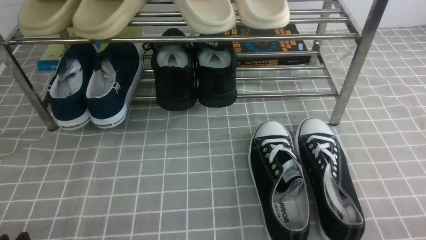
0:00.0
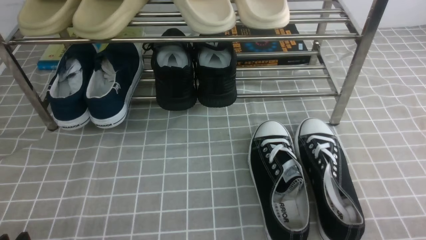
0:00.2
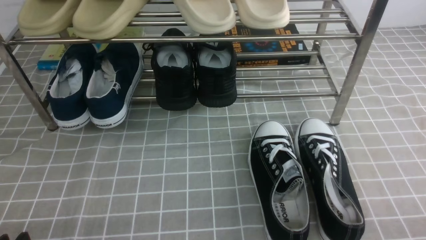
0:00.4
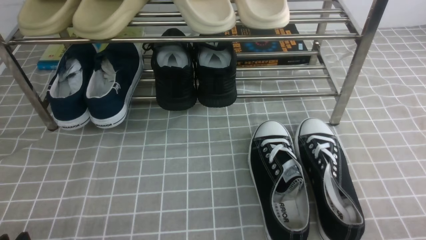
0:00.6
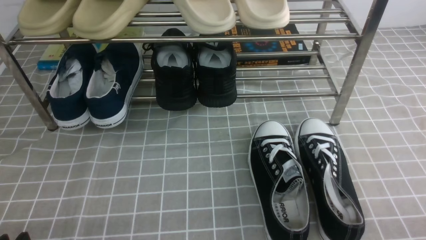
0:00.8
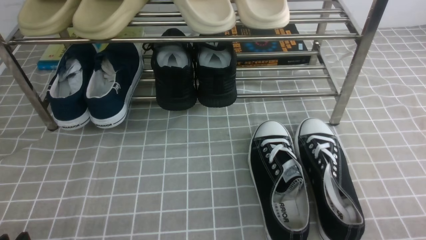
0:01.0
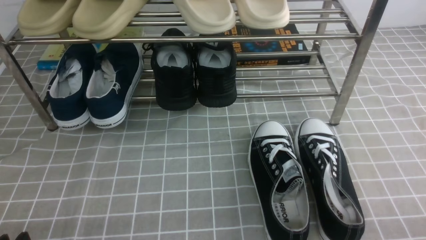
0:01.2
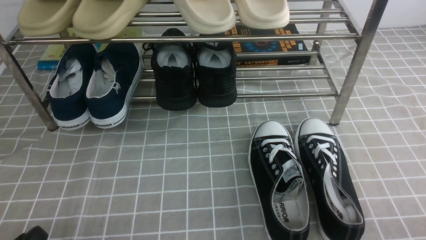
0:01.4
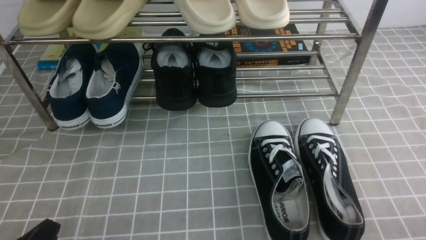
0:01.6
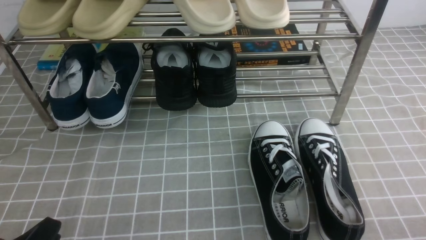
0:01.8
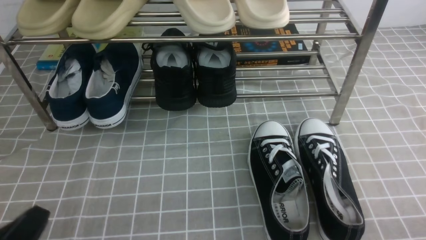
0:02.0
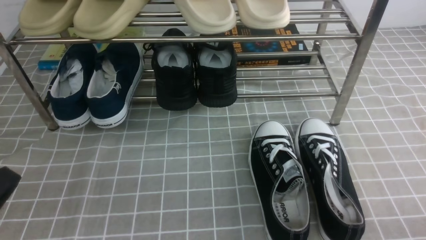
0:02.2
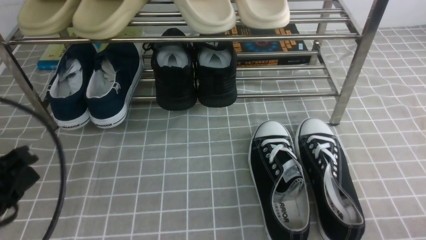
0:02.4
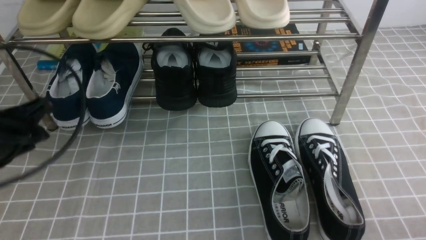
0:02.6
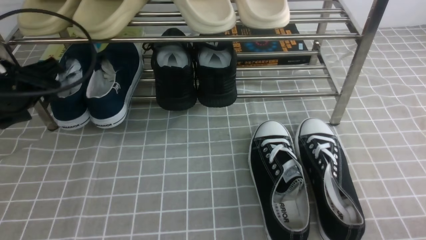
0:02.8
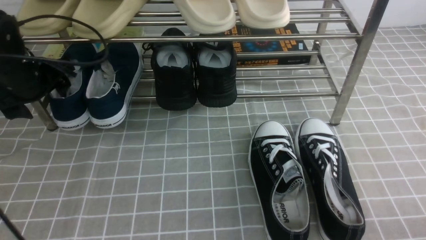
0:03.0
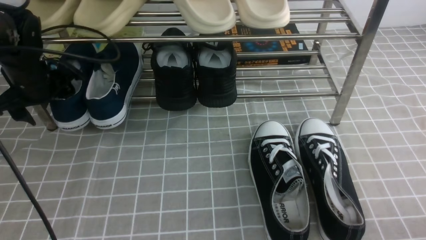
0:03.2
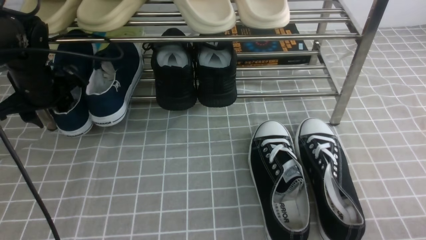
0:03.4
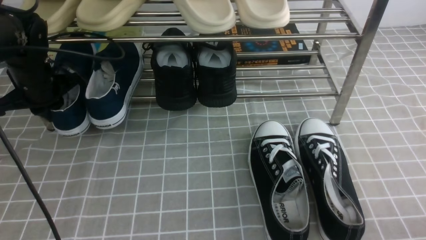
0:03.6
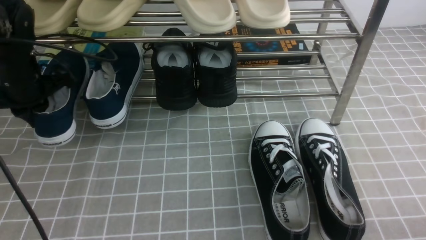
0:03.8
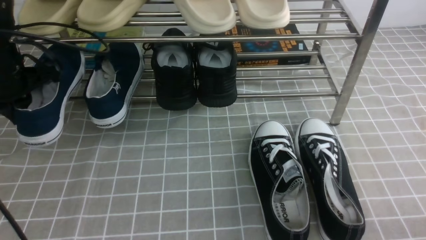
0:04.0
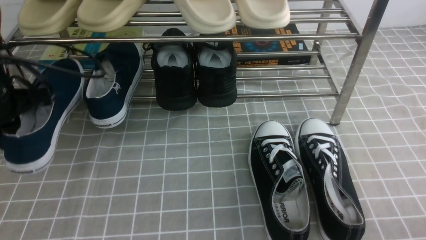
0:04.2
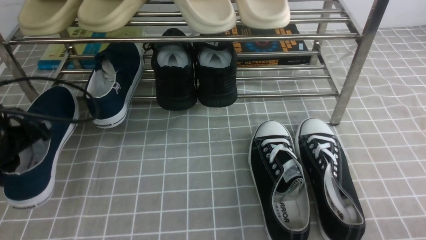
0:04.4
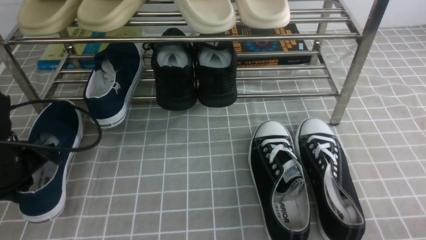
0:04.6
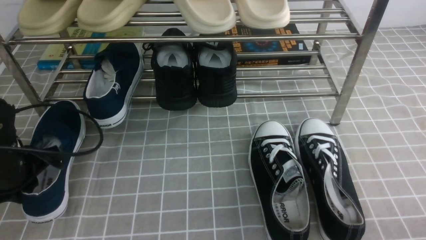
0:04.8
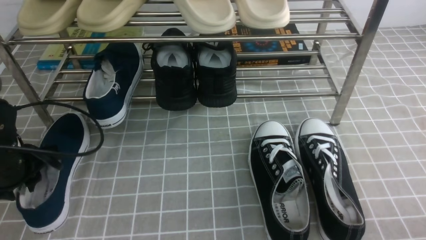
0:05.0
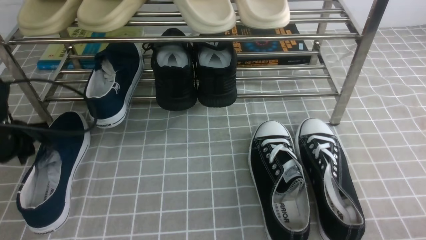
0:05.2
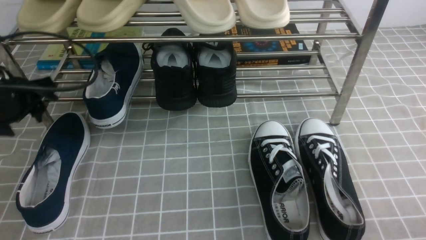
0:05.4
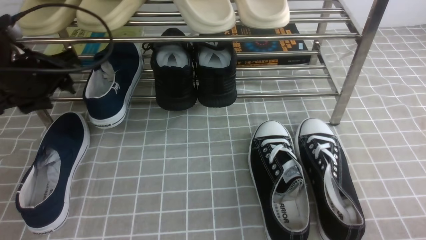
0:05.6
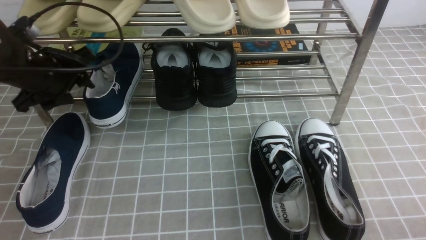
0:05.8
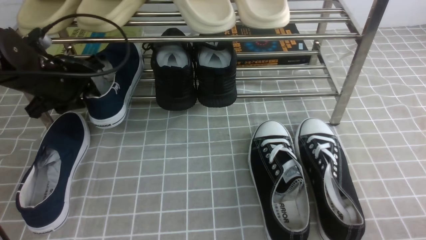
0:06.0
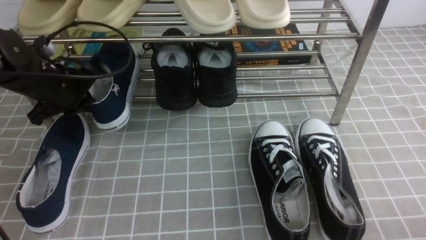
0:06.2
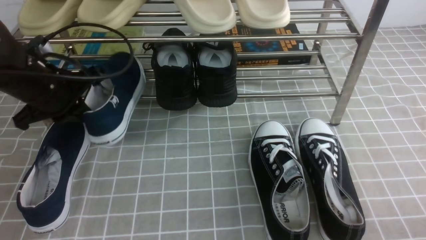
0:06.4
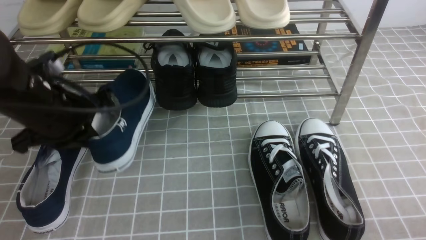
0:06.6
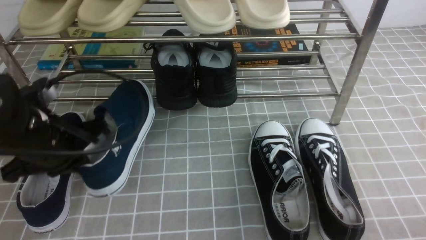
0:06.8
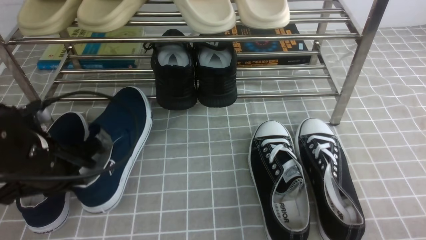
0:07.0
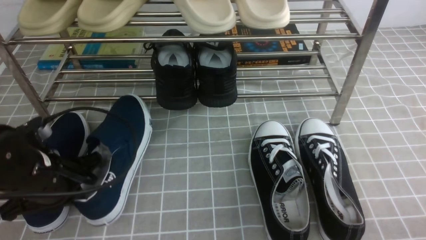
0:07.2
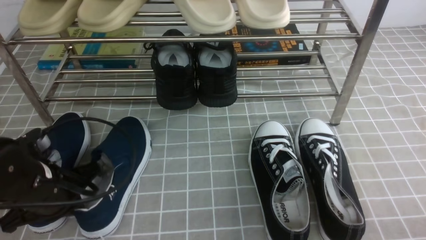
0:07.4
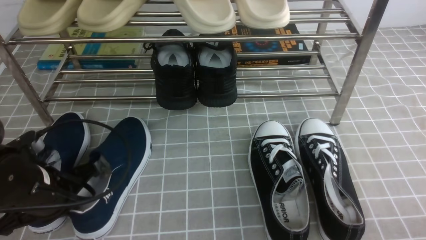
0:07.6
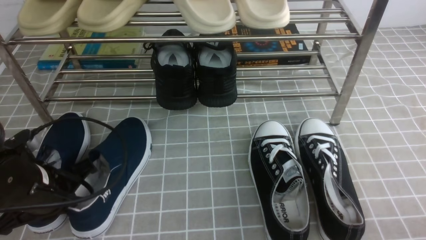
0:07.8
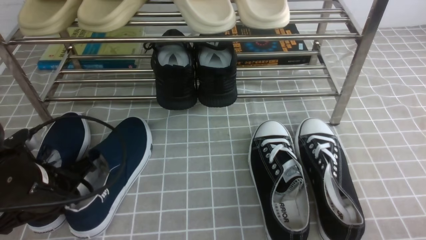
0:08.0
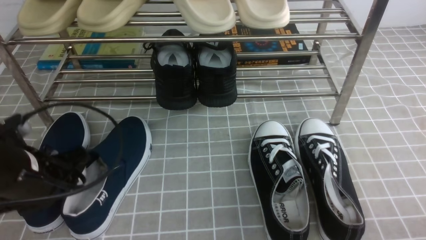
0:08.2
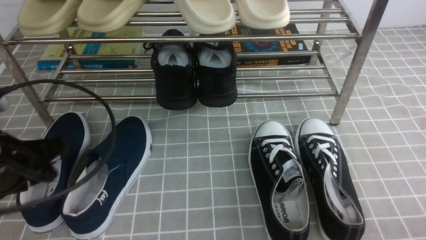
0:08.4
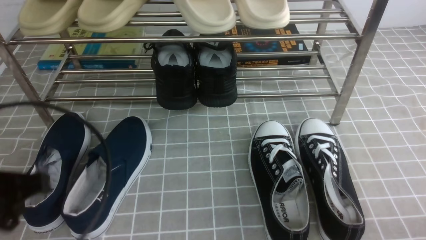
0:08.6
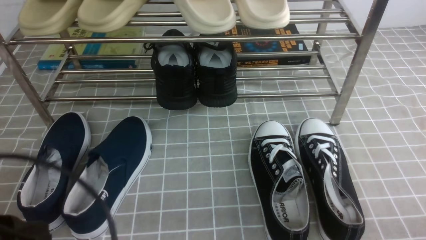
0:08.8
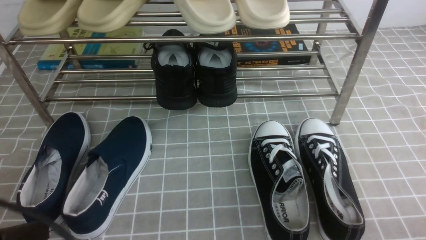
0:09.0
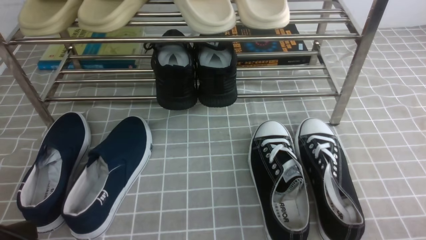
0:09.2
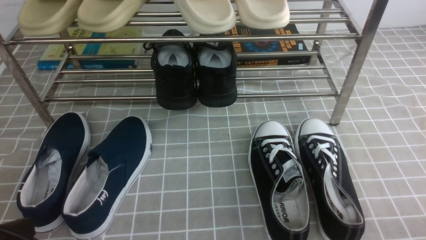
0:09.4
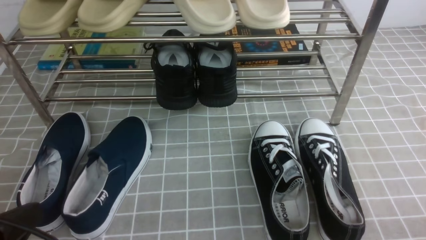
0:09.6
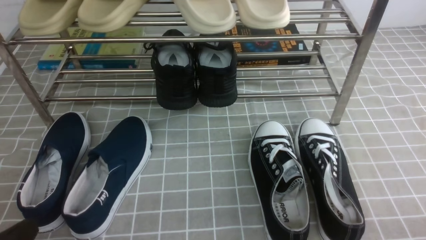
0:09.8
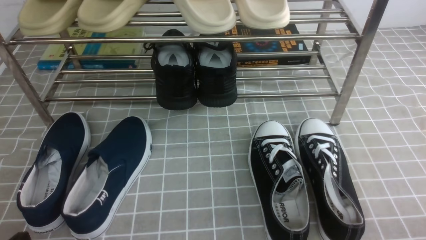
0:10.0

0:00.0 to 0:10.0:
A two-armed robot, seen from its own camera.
Step, 0:00.0 to 0:03.6: use the left arm to clamp a shoe on the left side of the shoe rack.
Step, 0:03.8 to 0:05.2: Use your left arm to remove the clamped shoe from the shoe rack and put it down.
Step, 0:05.4 to 0:06.4: use the left arm to clamp a shoe on the left side of the shoe rack.
Step, 0:06.6 to 0:07.8: Use your left arm to remove the clamped shoe from the shoe rack and put it down.
0:01.4 to 0:02.8: The left gripper is displaced forward and upward by roughly 30 cm, and opens its fingers.
0:02.8 to 0:04.2: The left gripper moves roughly 10 cm forward and comes back, and closes.
0:04.2 to 0:05.8: The left gripper heads forward, covering roughly 5 cm, and opens its fingers.
0:05.8 to 0:07.2: The left gripper goes some 15 cm backward and downward, and closes.
0:07.2 to 0:08.6: The left gripper is displaced backward and upward by about 10 cm, and opens, then closes once more.
0:08.6 to 0:10.0: The left gripper travels downward and backward by some 15 cm.

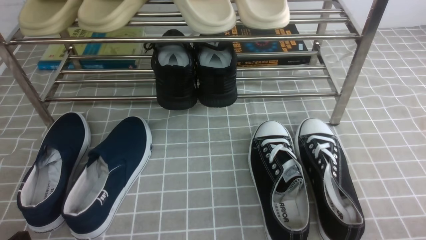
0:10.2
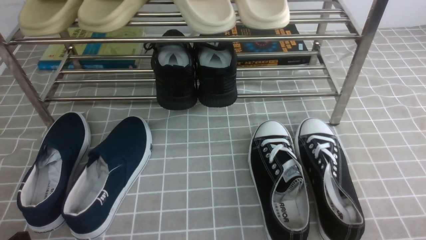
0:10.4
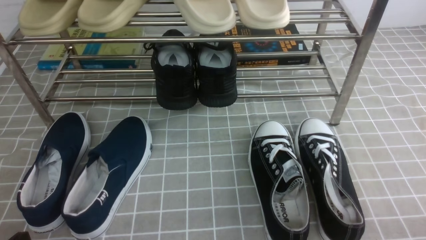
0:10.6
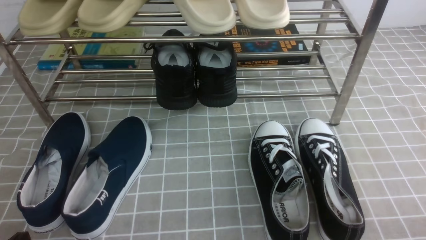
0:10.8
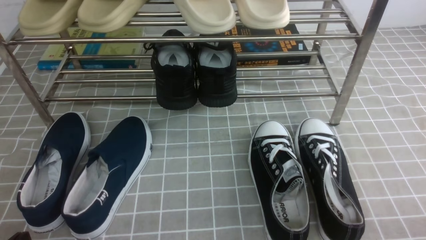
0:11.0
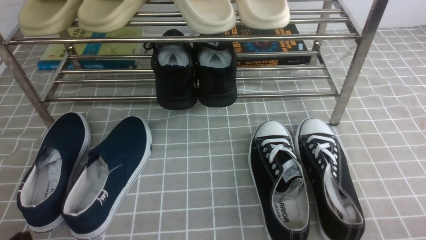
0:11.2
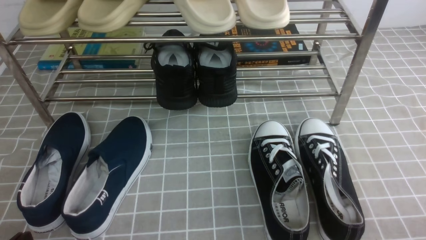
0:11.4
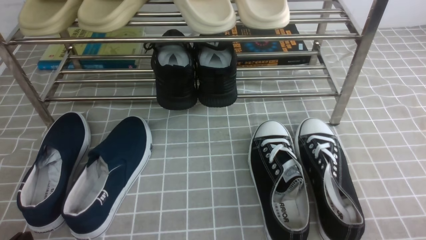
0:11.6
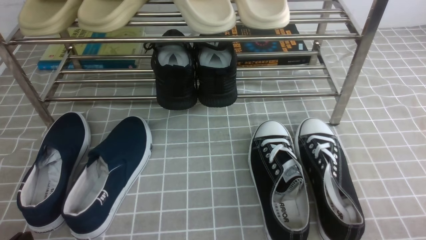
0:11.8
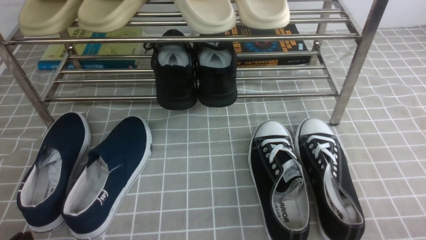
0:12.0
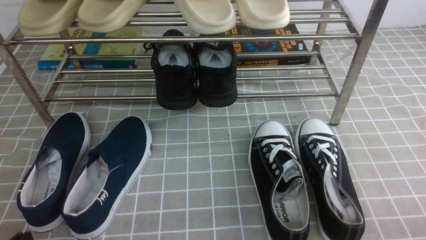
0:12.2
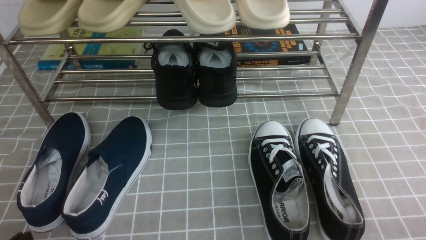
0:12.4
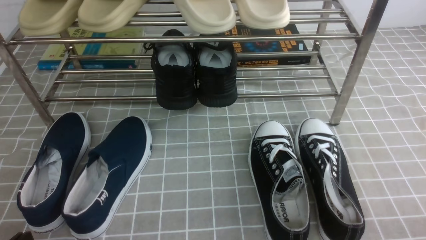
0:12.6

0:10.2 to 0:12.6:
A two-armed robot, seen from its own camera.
0:10.2 to 0:12.6: Both grippers stay put.

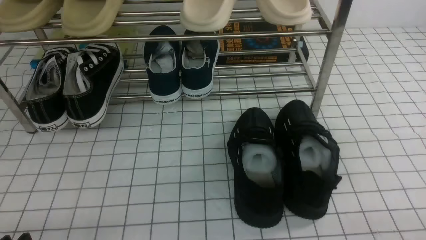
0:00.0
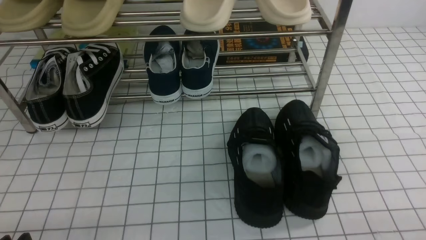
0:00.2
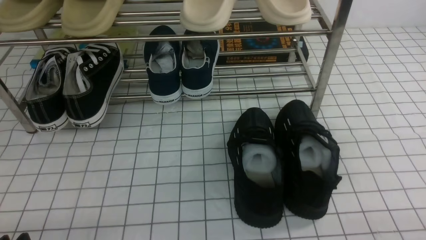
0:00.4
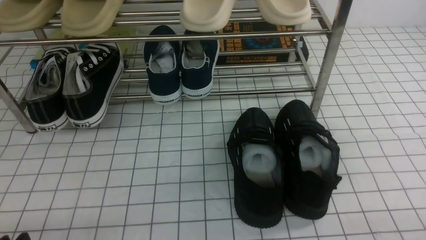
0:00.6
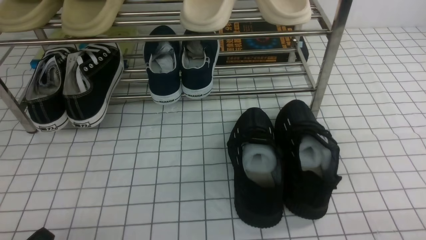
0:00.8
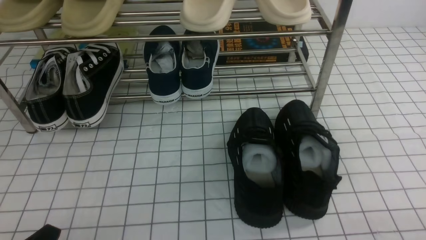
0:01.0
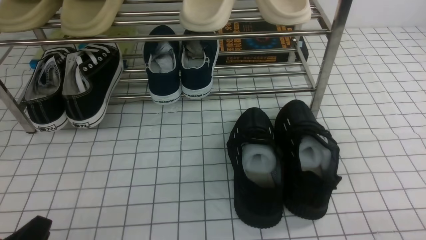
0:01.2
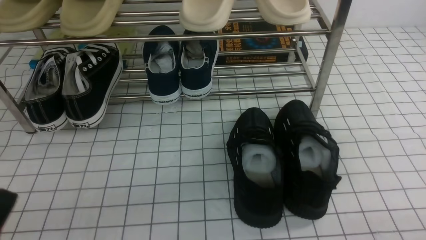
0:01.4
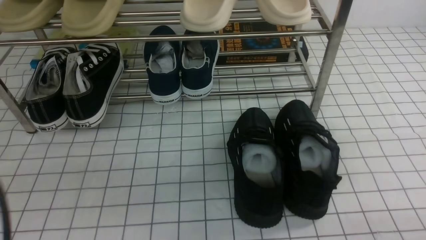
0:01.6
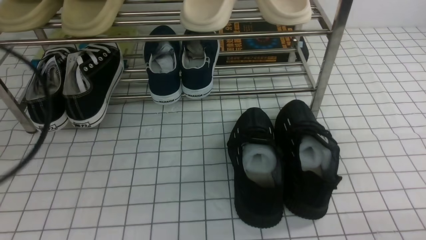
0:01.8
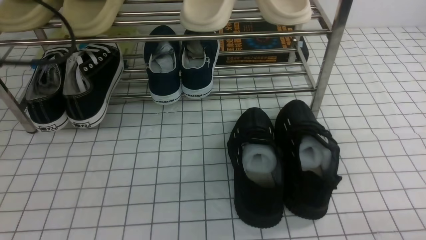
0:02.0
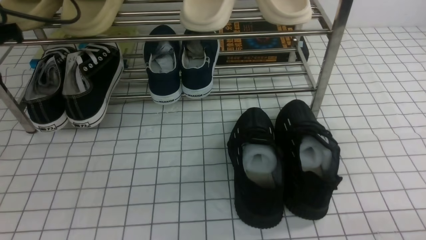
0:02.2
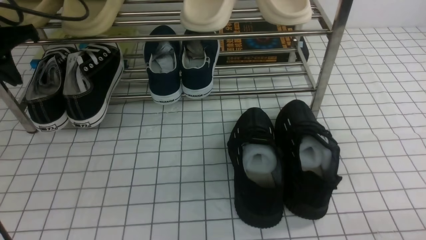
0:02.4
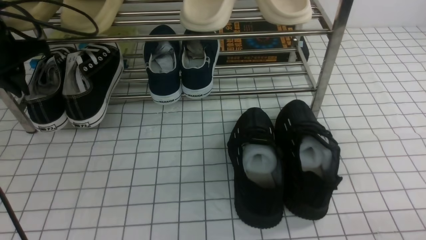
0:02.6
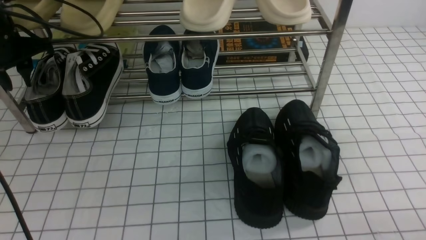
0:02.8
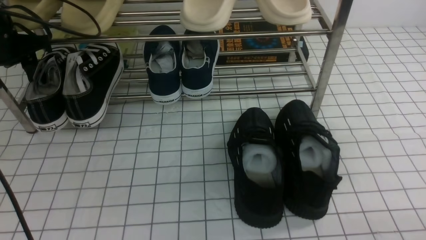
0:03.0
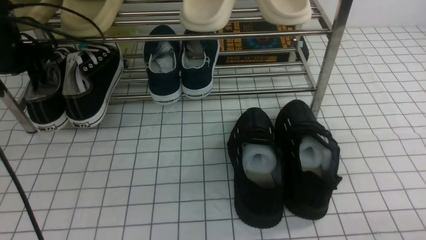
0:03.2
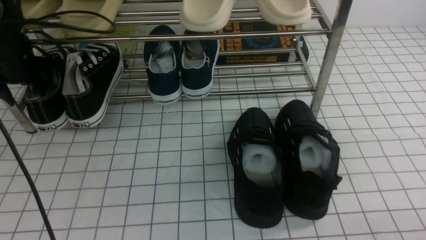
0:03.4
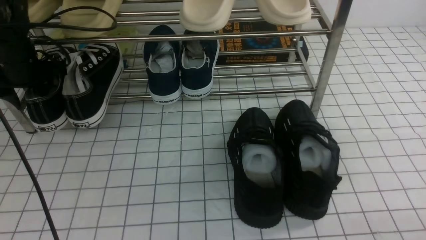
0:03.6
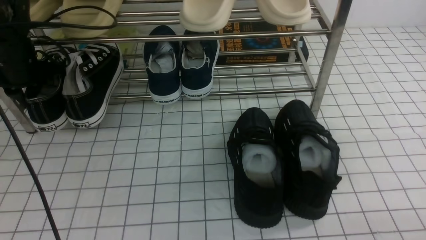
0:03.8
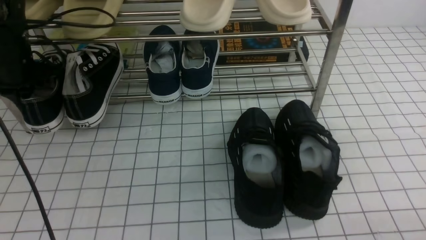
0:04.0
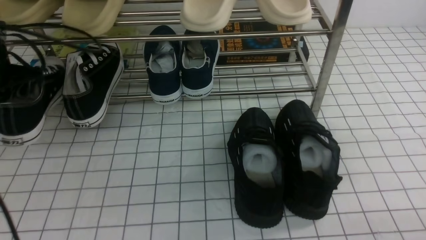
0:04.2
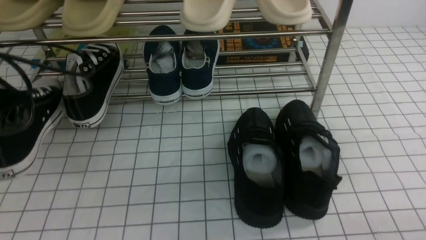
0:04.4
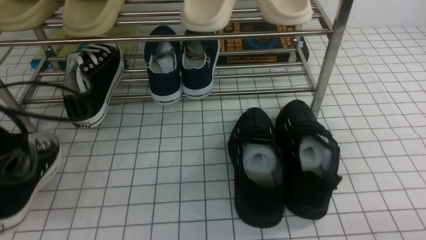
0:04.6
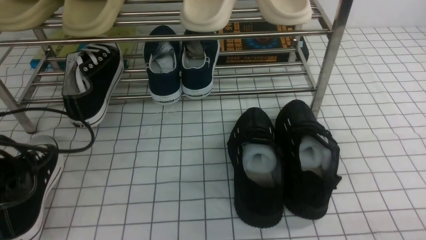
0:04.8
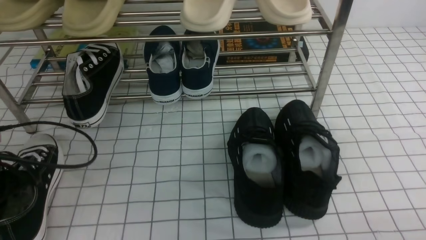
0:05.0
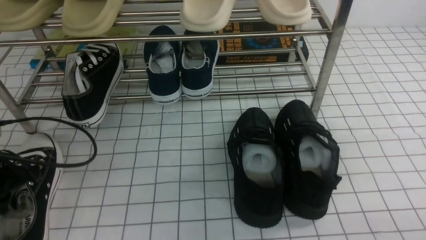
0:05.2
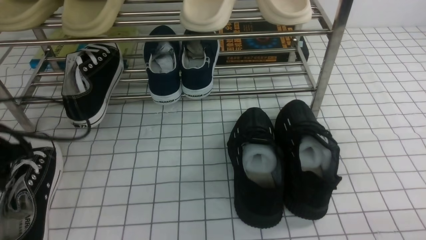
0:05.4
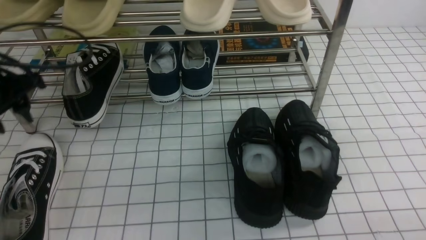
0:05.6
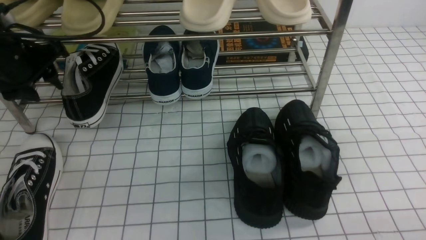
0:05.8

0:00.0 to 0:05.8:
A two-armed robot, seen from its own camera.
Step, 0:00.0 to 0:03.8: use the left arm to clamp a shoe on the left side of the shoe rack.
Step, 0:04.0 to 0:05.4: Use your left arm to remove the clamped shoe from the shoe rack and put it down.
0:00.0 to 0:01.4: The left gripper is displaced upward by about 10 cm, and closes up.
0:01.4 to 0:02.8: The left gripper moves forward, about 35 cm, and opens its fingers.
0:02.8 to 0:04.4: The left gripper is displaced backward by roughly 10 cm, and closes.
0:04.4 to 0:05.8: The left gripper opens its fingers.
